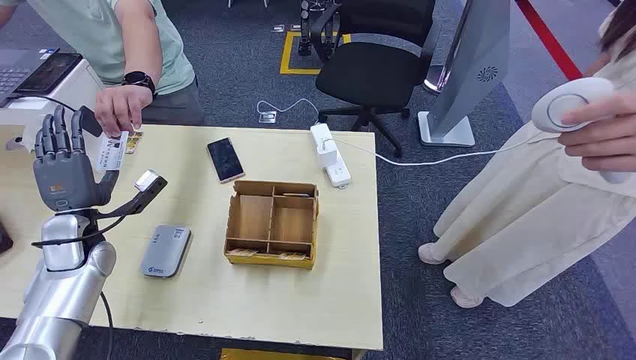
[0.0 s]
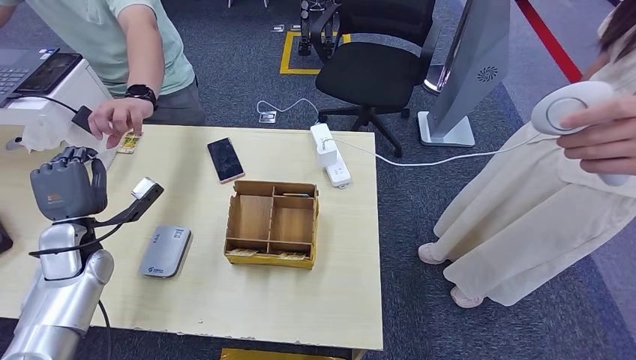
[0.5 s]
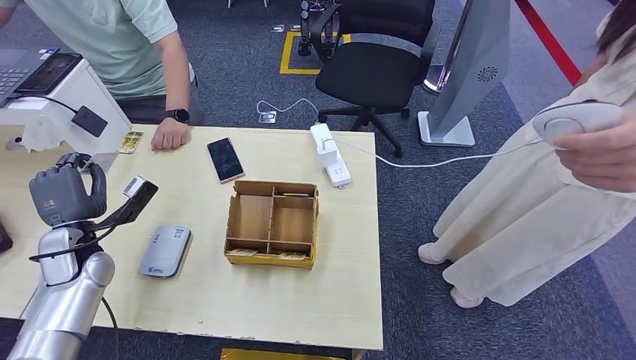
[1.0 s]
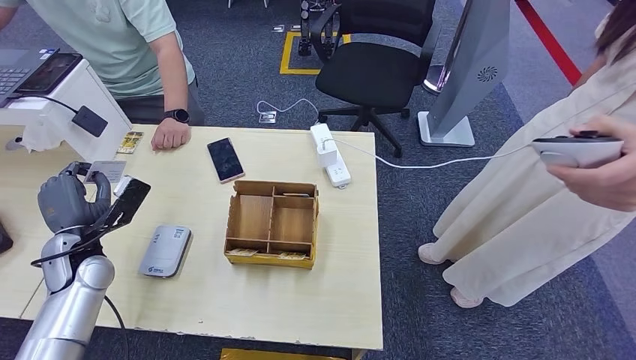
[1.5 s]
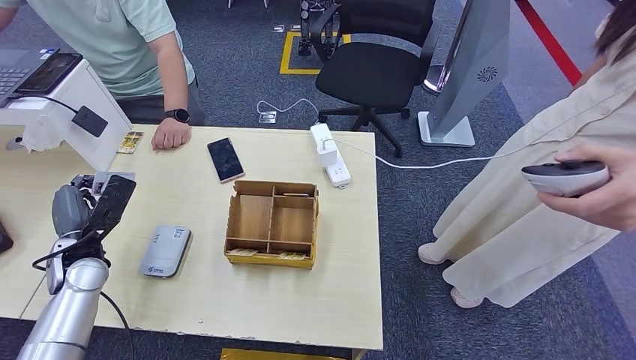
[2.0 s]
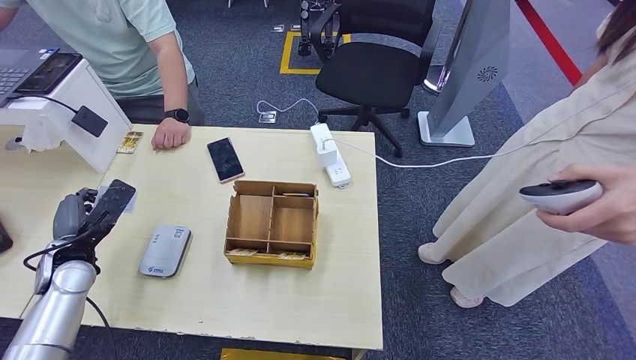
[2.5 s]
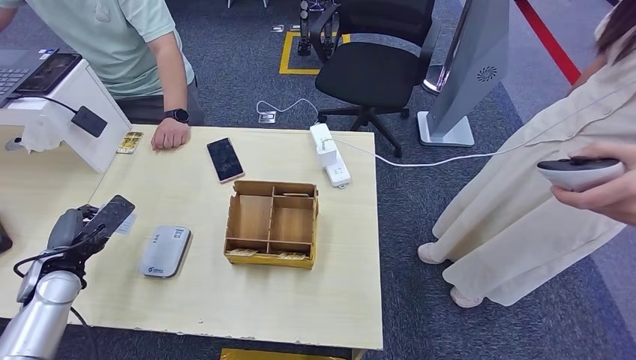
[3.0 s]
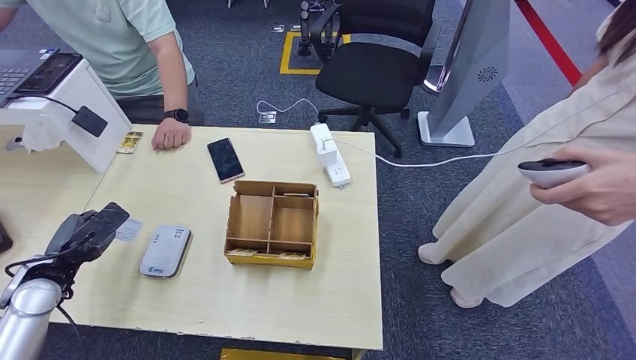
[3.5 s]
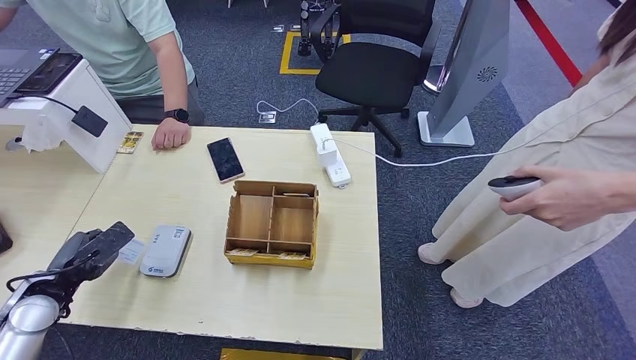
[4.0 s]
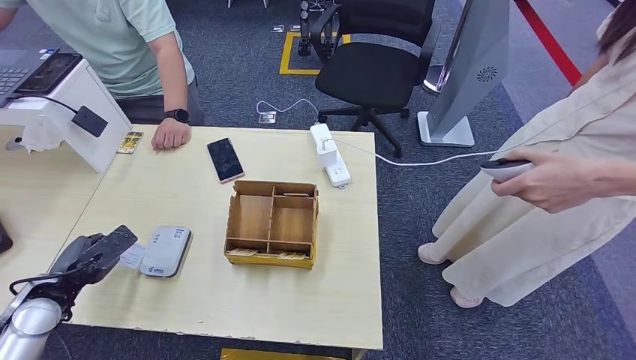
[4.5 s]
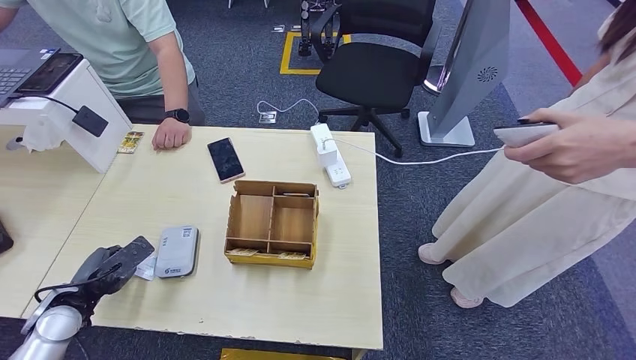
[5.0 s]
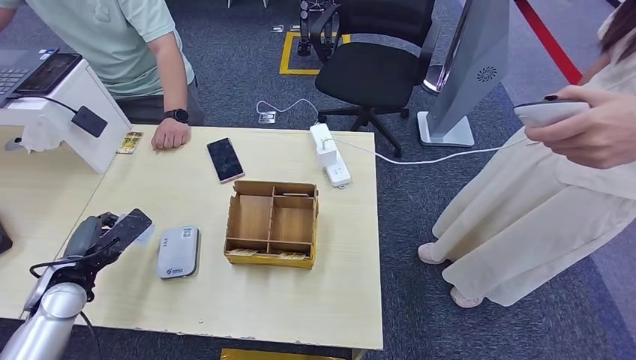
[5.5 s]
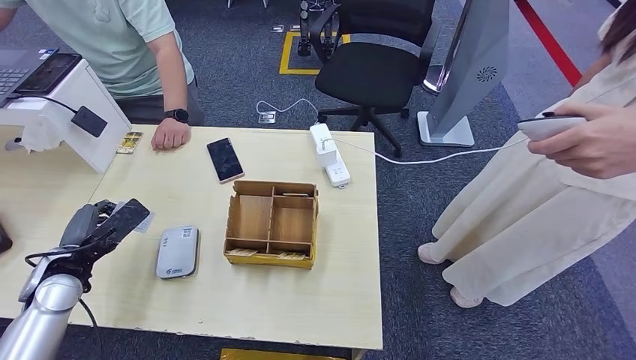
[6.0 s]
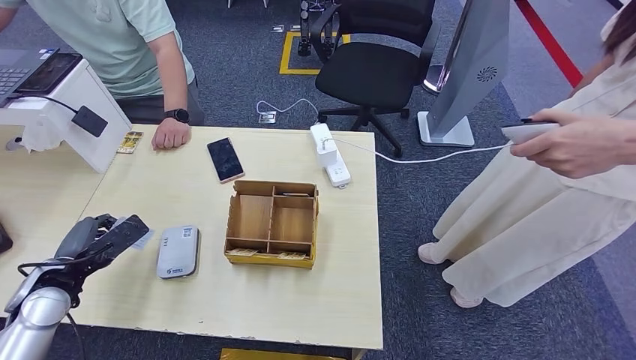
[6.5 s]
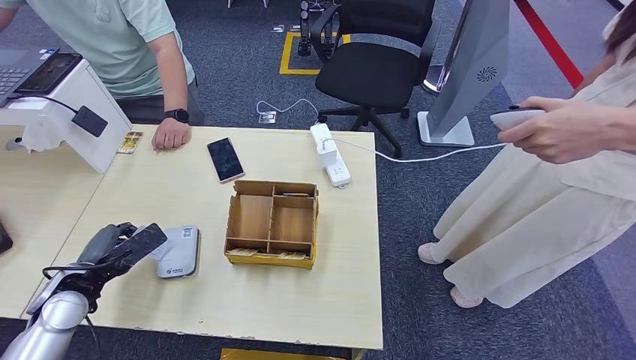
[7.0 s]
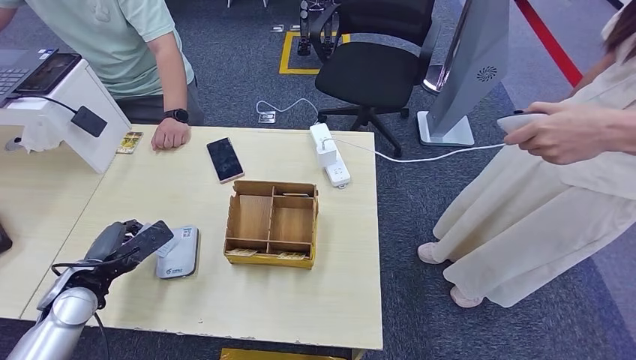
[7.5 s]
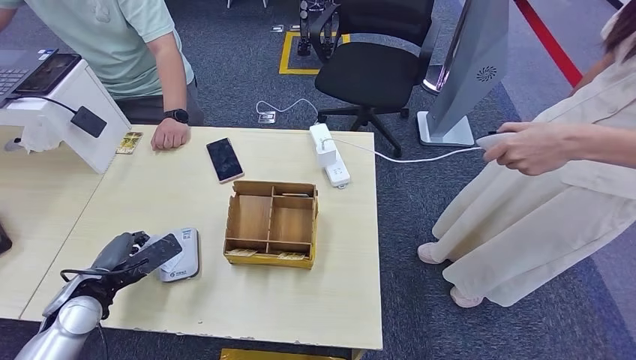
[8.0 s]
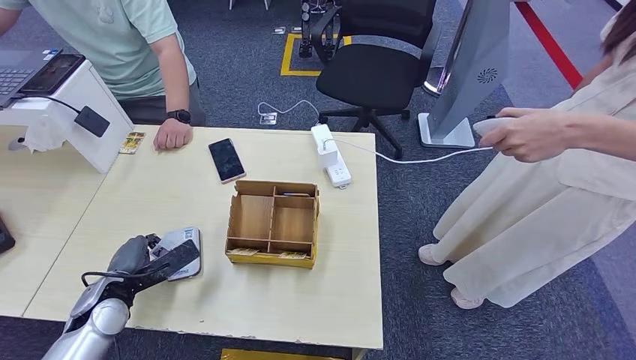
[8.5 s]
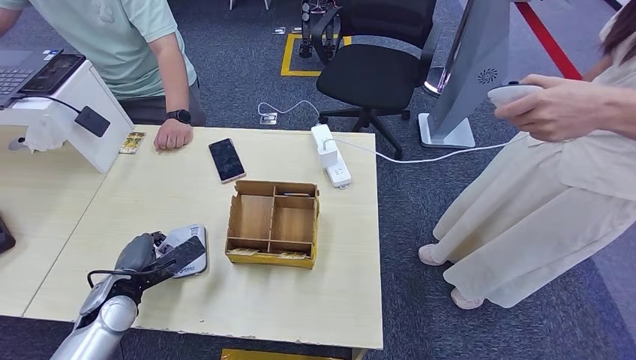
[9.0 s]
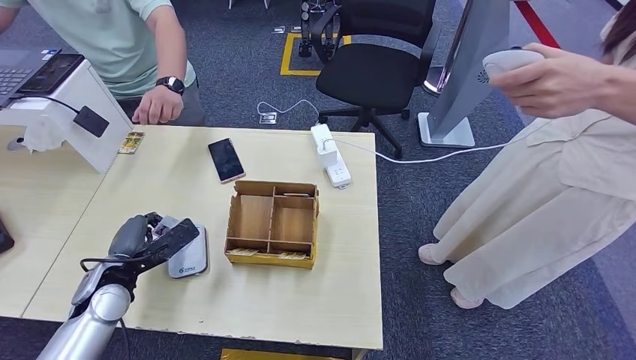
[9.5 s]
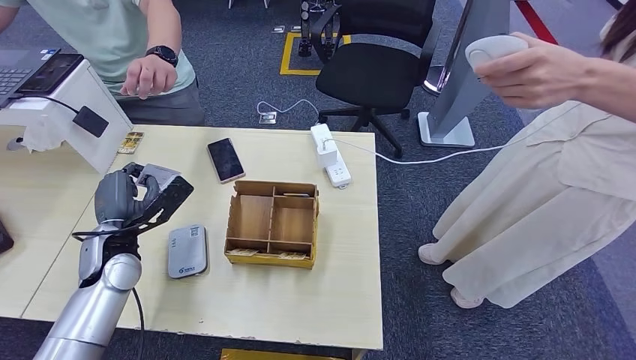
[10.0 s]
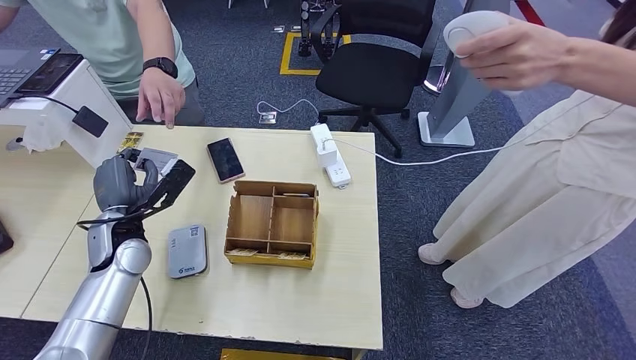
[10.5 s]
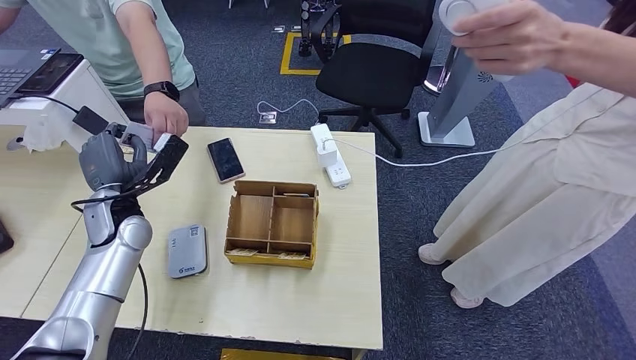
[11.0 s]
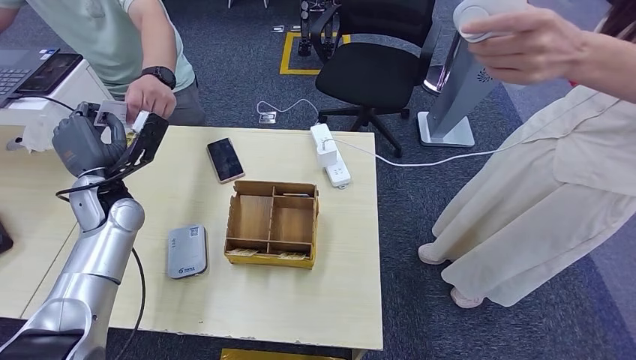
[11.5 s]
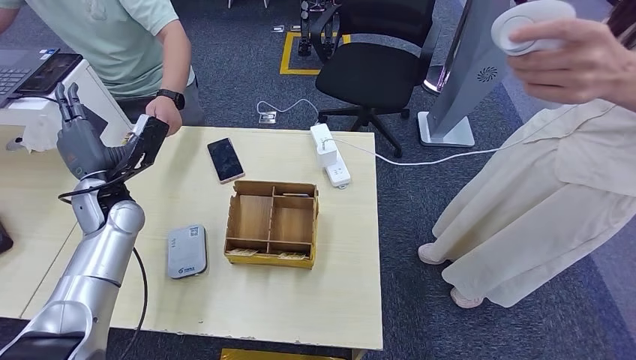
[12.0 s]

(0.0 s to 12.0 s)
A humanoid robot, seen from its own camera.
Step, 0.0 s - 1.0 s: Take the ID card from the person's hand.
Step, 1.5 s - 7.5 s: Place the ID card on the card reader.
Step, 8.0 s - 11.5 s: Hand the ID card to the person.
2.0 s - 4.0 s: The left hand goes some 5 cm backward.
4.0 s - 6.0 s: The hands make only small movements.
6.0 s - 8.0 s: The left hand changes place by about 5 cm.
8.0 s - 10.0 s: The left hand is displaced forward and upward by approximately 10 cm.
10.0 s - 12.0 s: The left hand moves forward and upward, roughly 10 cm.

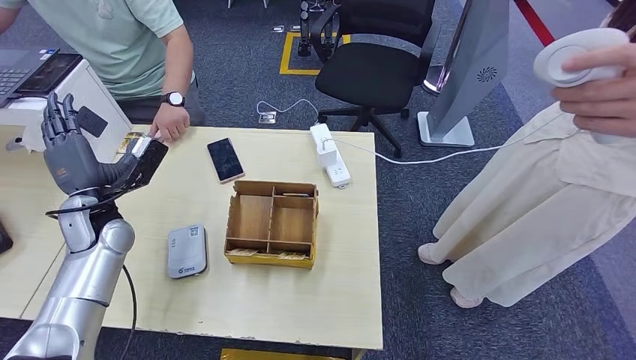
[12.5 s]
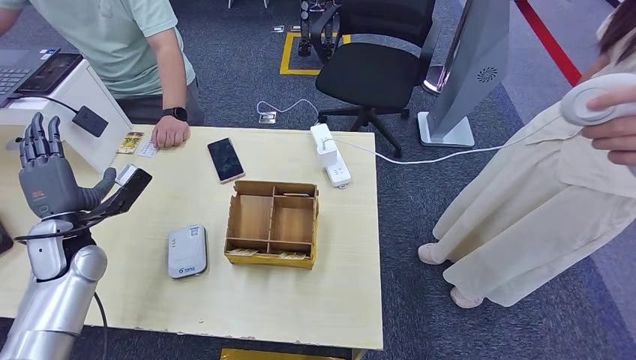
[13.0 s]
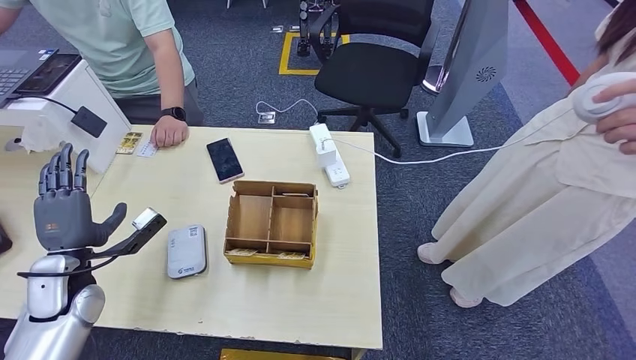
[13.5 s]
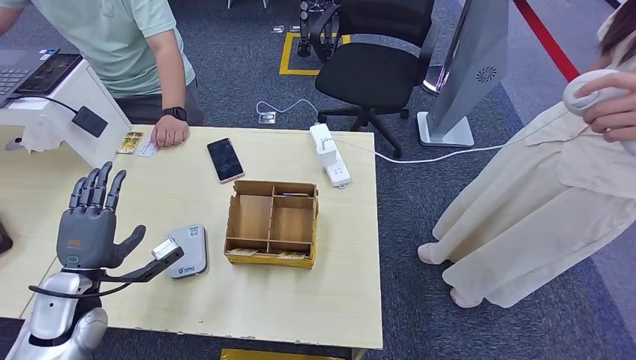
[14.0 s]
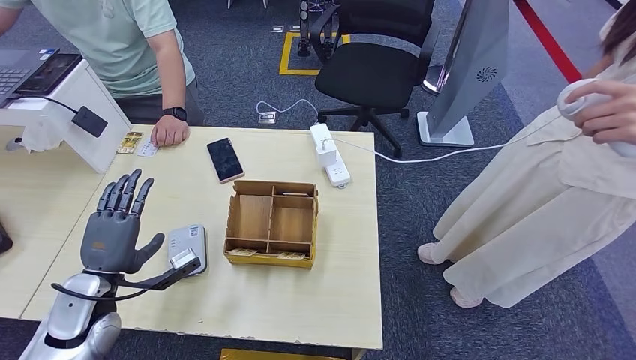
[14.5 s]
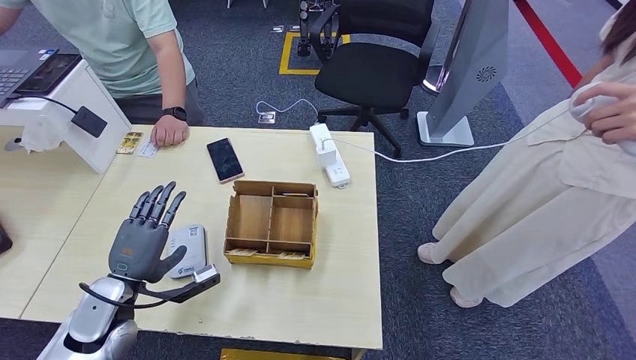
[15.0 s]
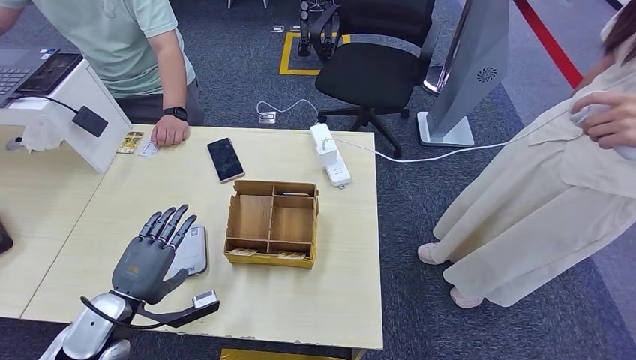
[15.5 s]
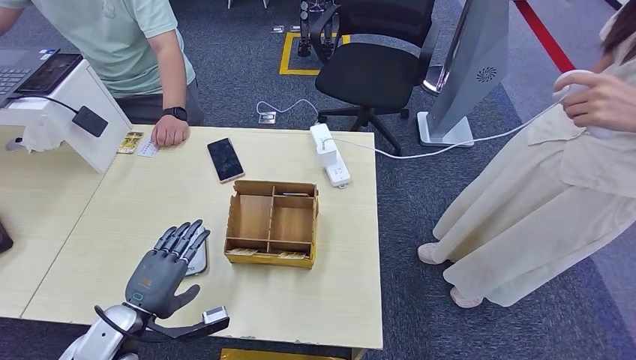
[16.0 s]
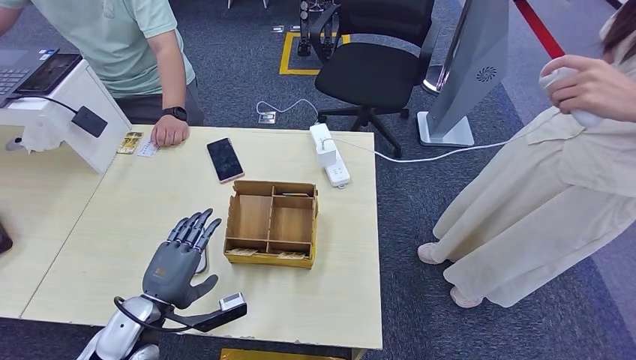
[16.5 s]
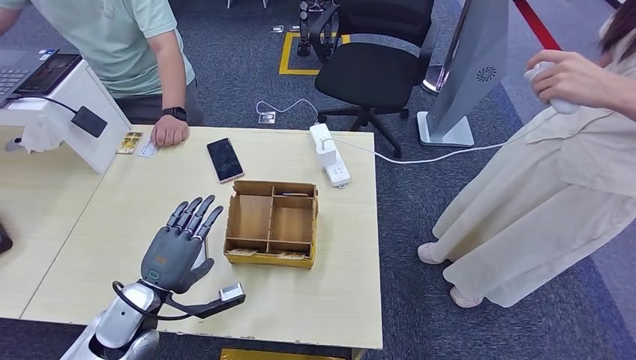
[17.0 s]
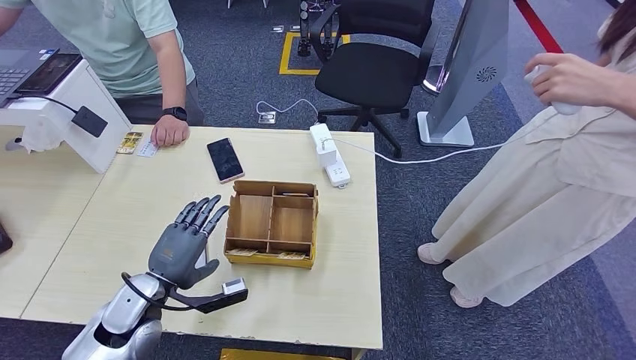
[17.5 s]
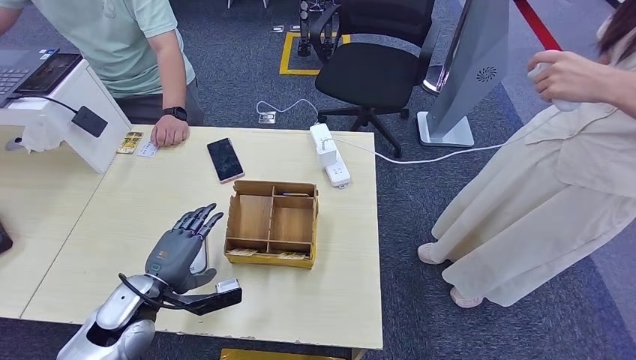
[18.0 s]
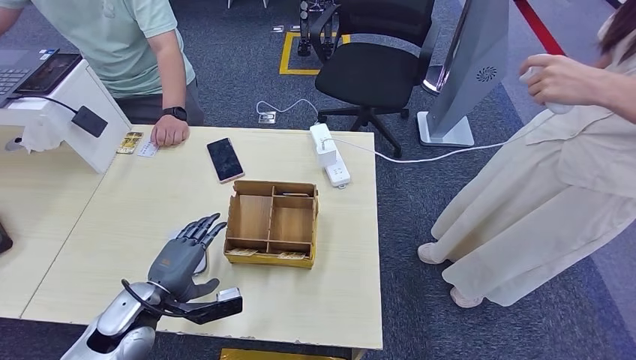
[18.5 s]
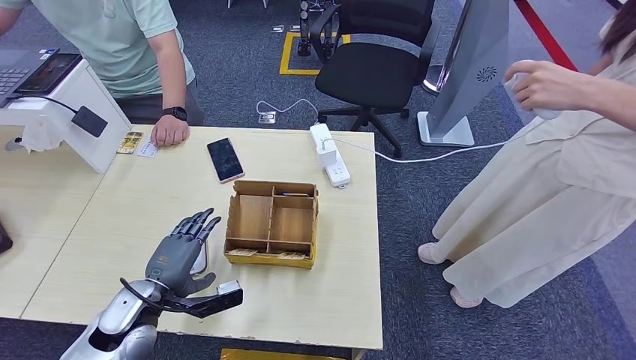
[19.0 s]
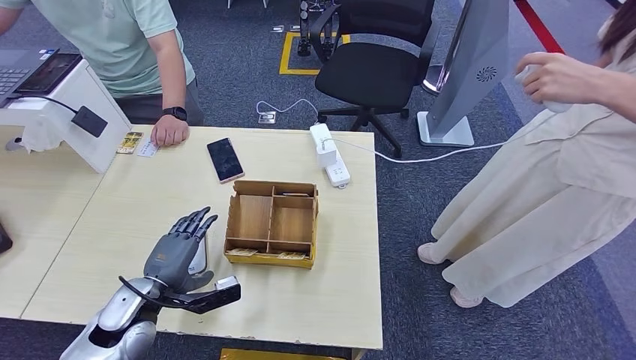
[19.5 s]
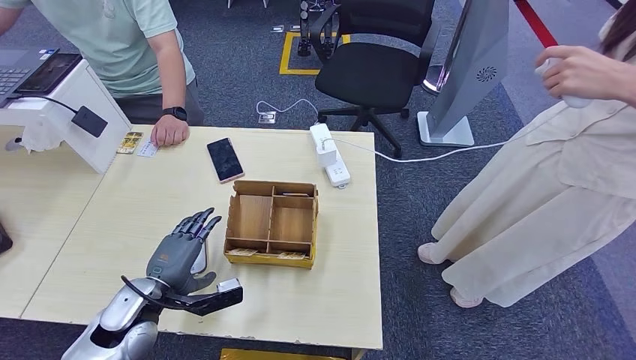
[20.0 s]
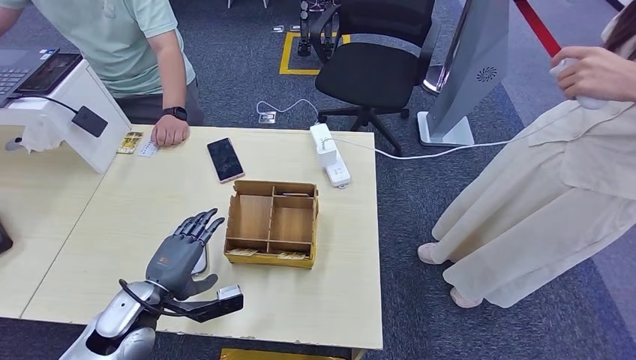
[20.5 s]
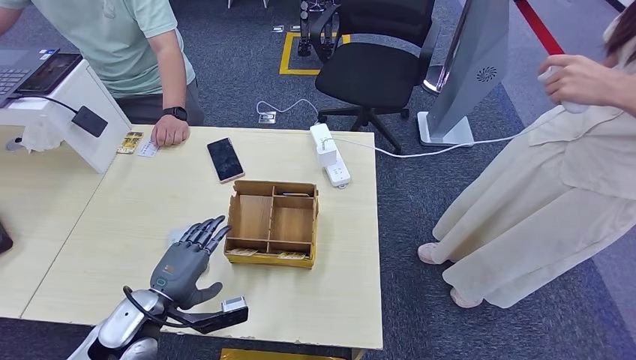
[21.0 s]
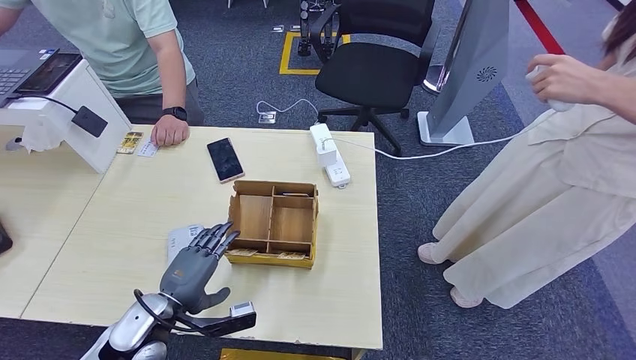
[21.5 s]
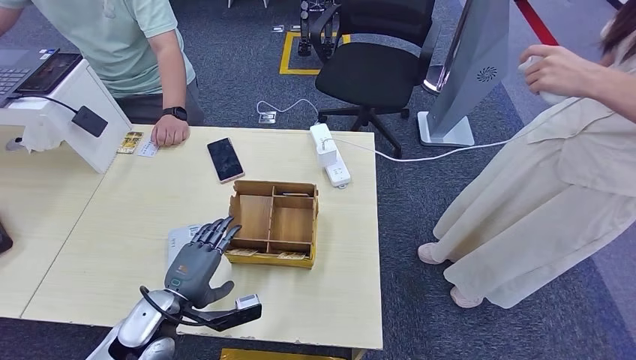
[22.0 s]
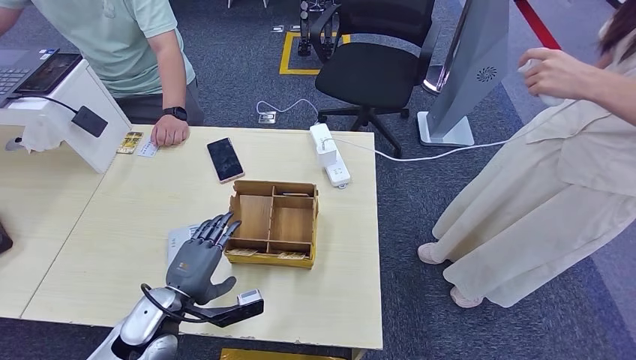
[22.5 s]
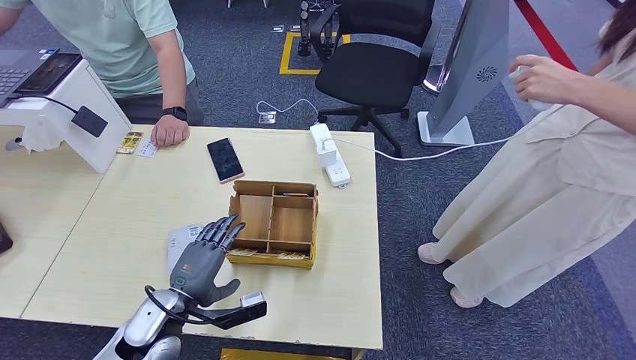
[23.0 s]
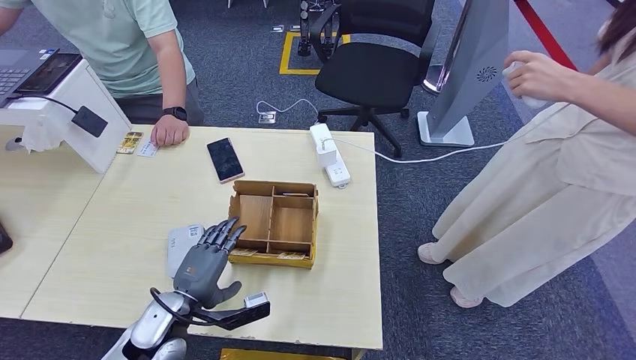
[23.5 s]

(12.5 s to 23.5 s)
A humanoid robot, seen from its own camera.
12.5 s - 14.5 s: The left hand moves backward and downward, roughly 15 cm.
14.5 s - 16.0 s: The left hand ends up some 5 cm from where it was.
16.0 s - 18.0 s: The left hand ends up roughly 5 cm from where it was.
18.0 s - 23.5 s: The hands make only small movements.
